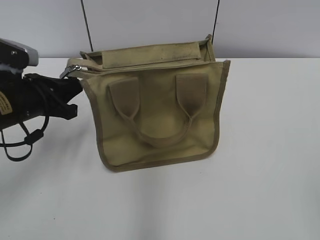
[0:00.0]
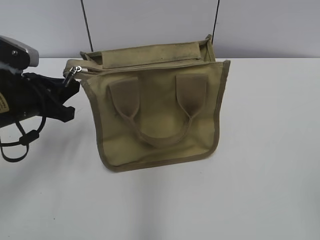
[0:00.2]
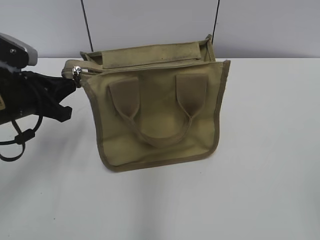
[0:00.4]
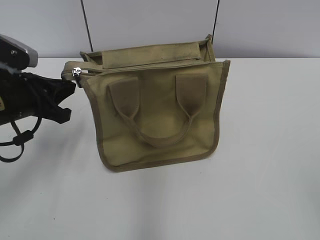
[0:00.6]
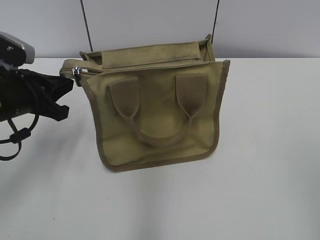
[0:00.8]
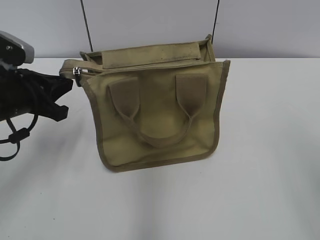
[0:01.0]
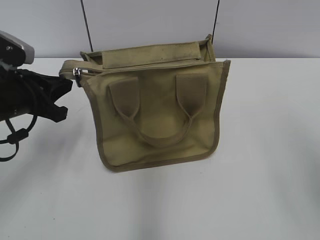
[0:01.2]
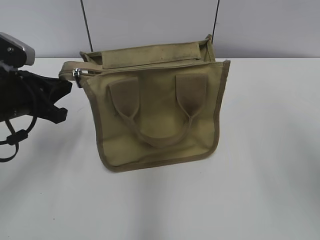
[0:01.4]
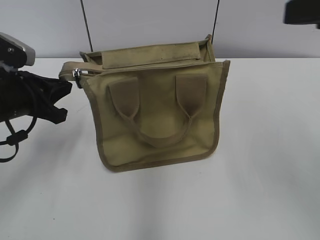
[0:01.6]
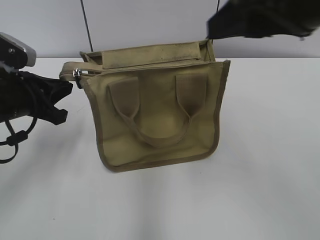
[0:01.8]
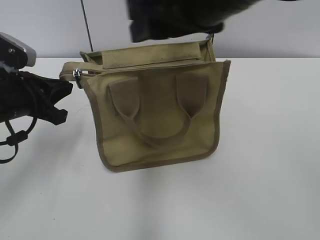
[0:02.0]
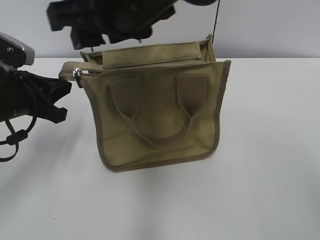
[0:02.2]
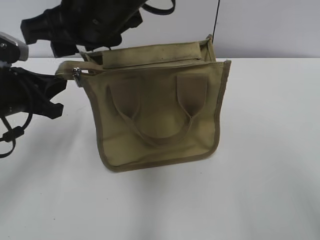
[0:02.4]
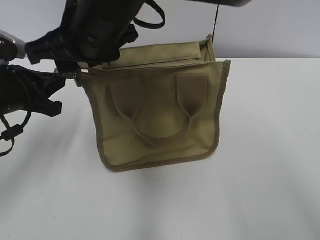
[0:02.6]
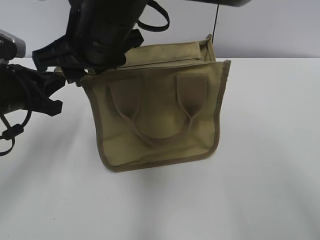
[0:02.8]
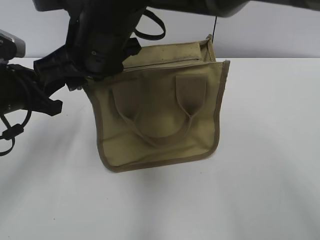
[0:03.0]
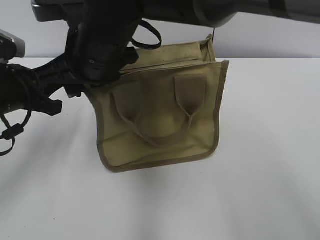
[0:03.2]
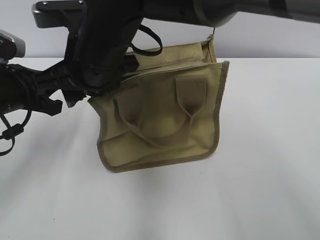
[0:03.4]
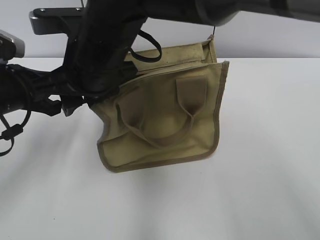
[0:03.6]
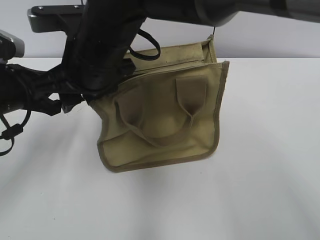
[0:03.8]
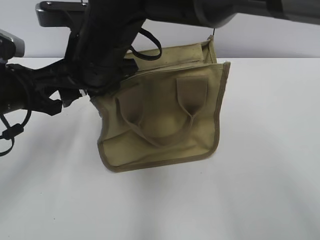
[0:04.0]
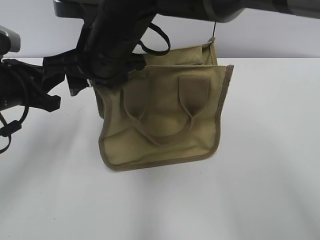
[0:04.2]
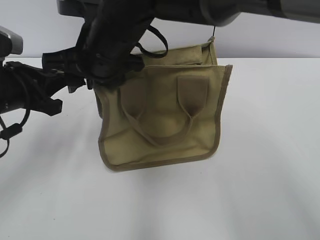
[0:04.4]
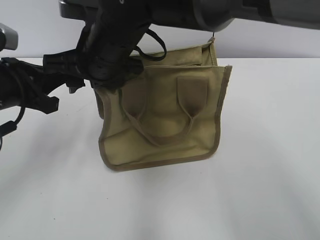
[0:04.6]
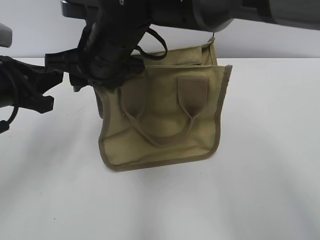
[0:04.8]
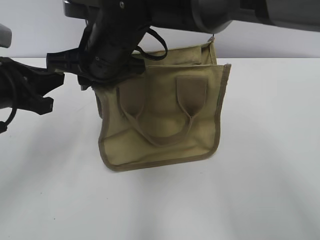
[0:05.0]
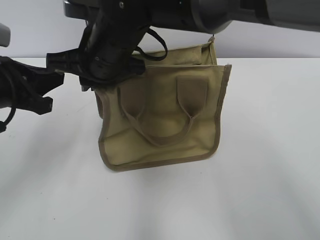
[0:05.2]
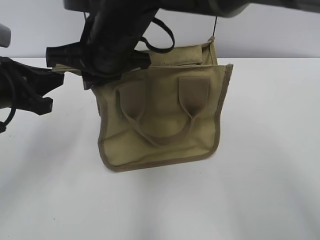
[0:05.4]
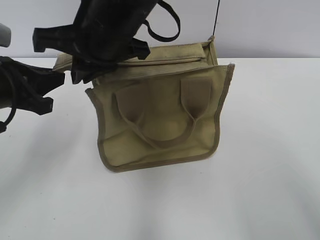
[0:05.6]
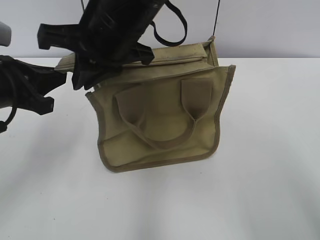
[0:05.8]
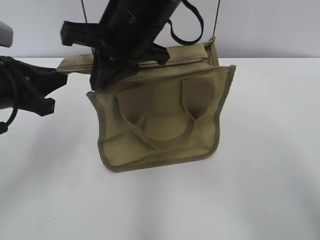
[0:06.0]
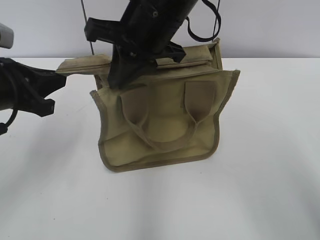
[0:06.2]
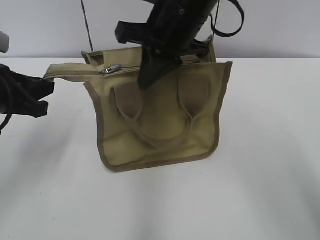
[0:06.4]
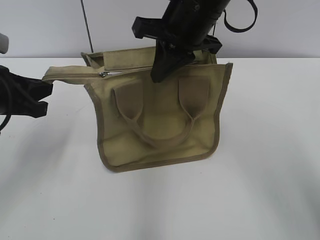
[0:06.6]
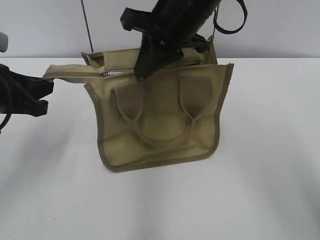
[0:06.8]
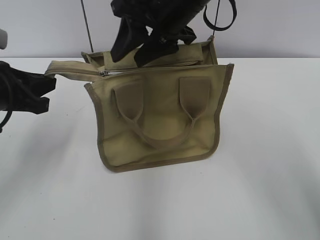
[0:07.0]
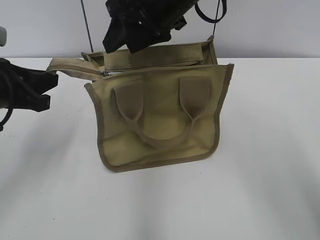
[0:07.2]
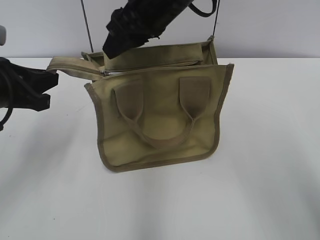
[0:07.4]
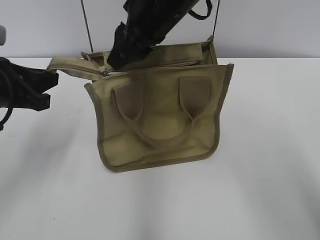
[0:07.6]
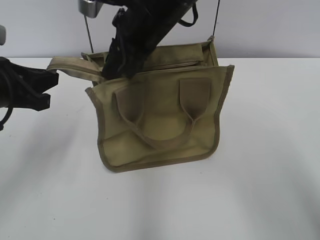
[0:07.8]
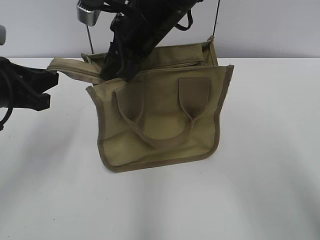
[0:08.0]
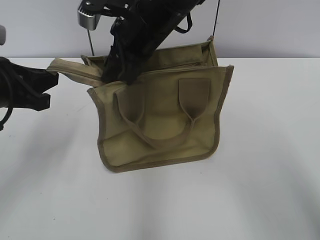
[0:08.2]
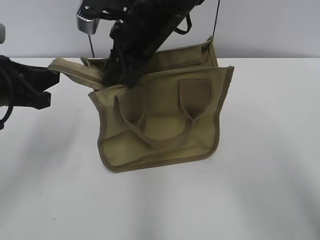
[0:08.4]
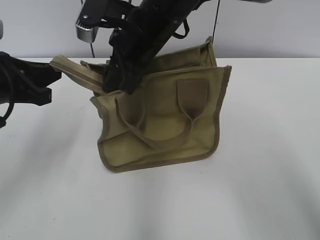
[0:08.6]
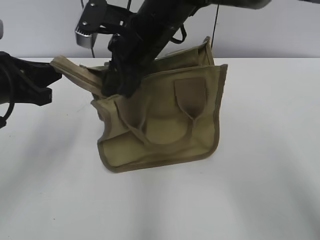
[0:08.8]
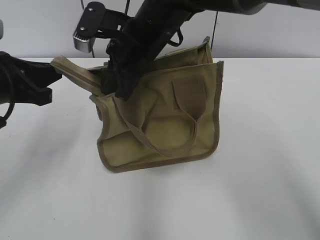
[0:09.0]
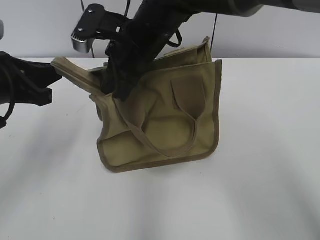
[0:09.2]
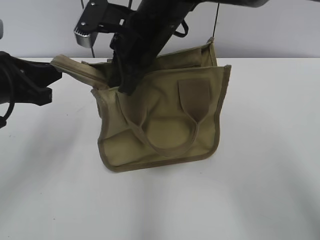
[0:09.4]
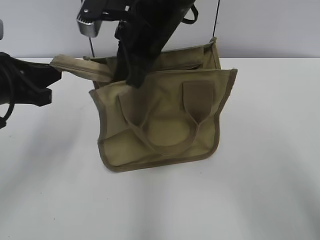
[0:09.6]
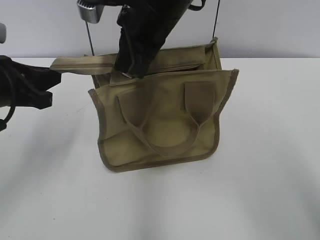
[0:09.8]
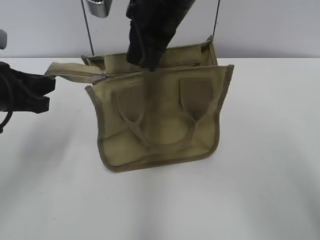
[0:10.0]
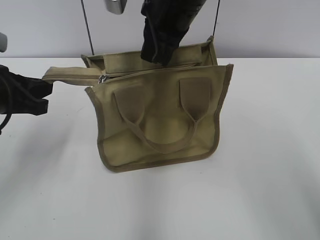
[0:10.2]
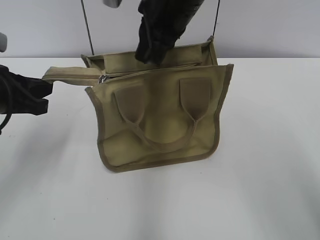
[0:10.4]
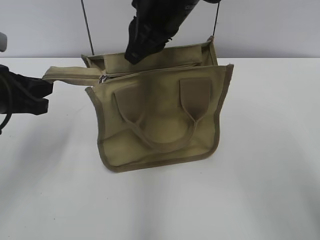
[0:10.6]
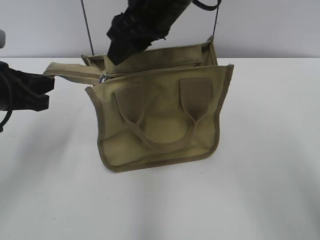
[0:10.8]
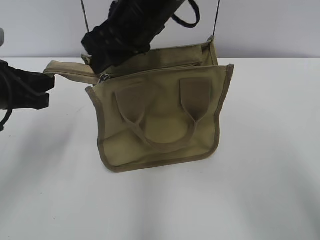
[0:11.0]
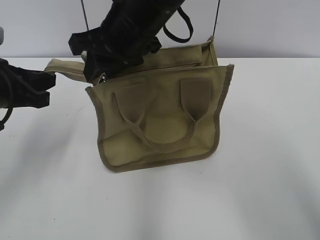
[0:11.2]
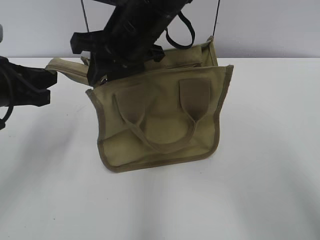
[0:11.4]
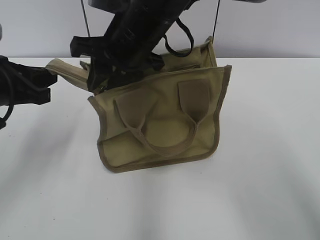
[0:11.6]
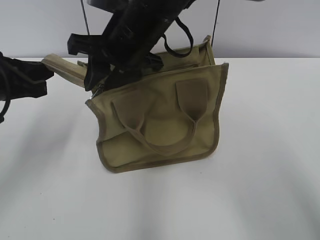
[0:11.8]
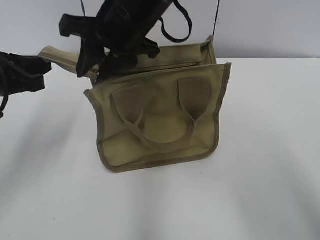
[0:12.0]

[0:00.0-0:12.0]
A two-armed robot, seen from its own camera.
0:00.0 to 0:01.6: The right gripper travels forward and upward by roughly 20 cm.
0:01.6 to 0:03.0: The right gripper is displaced to the left by about 30 cm.
0:03.0 to 0:04.4: There are only small adjustments of the grippers.
0:04.4 to 0:06.0: The right gripper ends up some 5 cm from where it was, and closes up.
0:06.0 to 0:07.6: The right gripper moves about 5 cm, and opens.
0:07.6 to 0:09.0: The right gripper shifts roughly 5 cm downward.
0:09.0 to 0:10.4: The right gripper moves upward, roughly 5 cm.
0:10.4 to 0:12.0: The right gripper goes approximately 5 cm to the left, and opens its fingers.

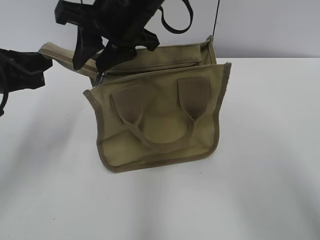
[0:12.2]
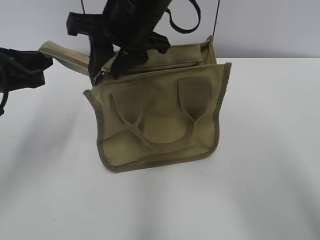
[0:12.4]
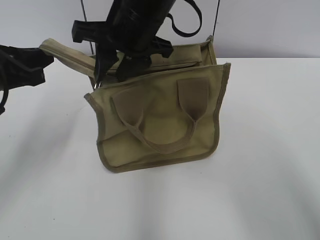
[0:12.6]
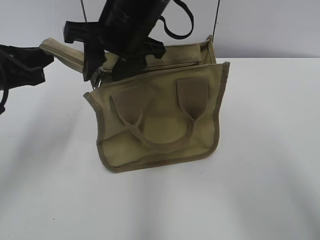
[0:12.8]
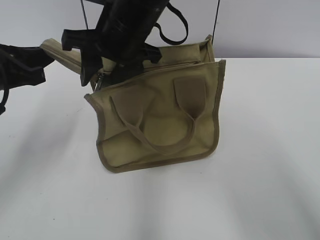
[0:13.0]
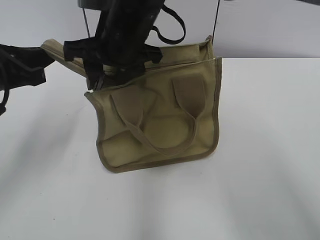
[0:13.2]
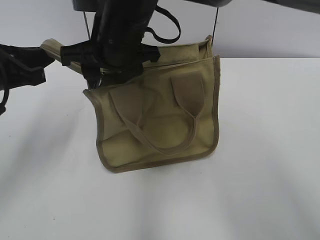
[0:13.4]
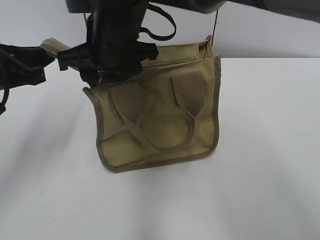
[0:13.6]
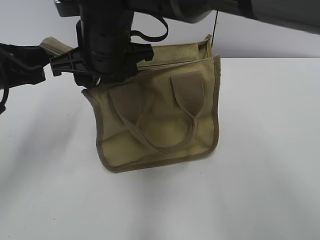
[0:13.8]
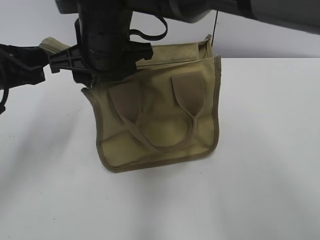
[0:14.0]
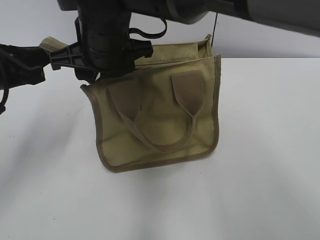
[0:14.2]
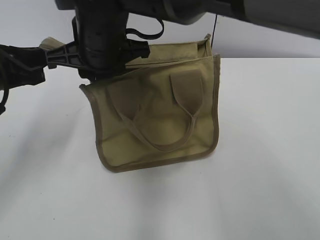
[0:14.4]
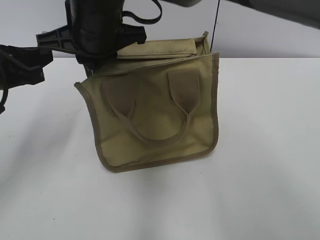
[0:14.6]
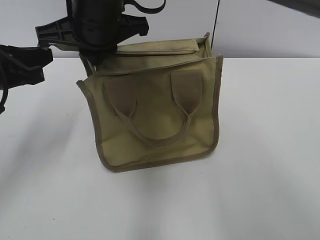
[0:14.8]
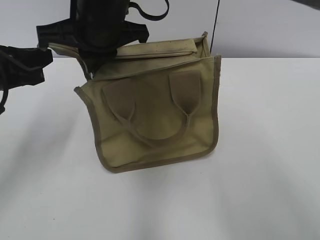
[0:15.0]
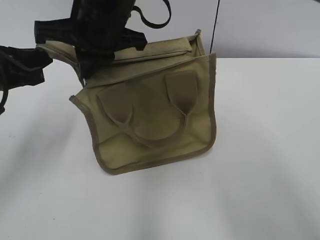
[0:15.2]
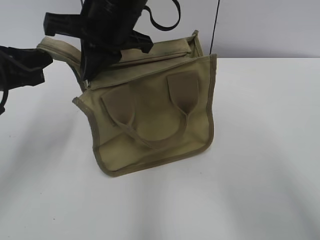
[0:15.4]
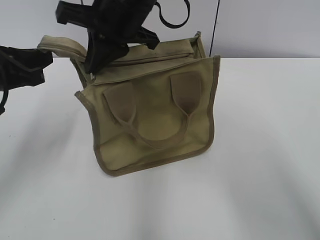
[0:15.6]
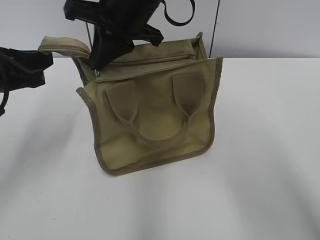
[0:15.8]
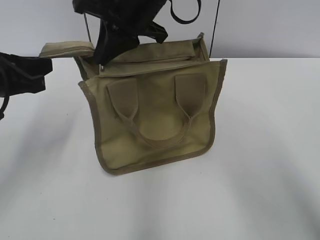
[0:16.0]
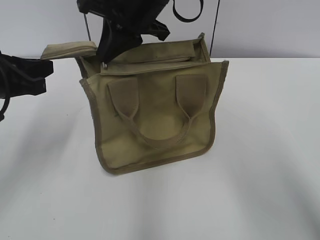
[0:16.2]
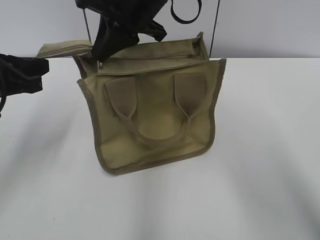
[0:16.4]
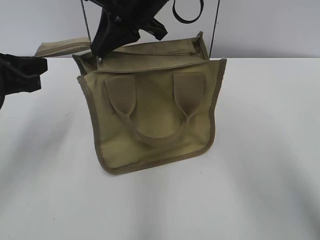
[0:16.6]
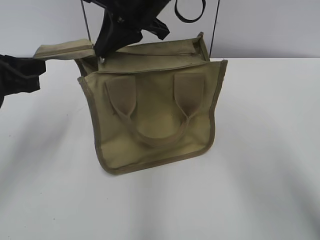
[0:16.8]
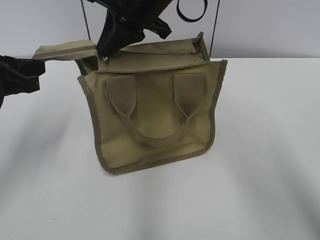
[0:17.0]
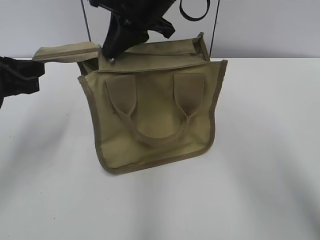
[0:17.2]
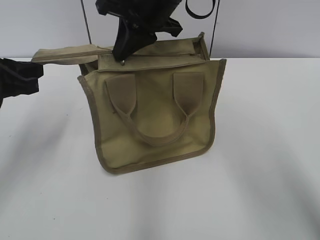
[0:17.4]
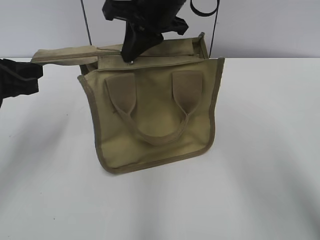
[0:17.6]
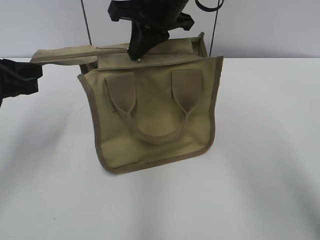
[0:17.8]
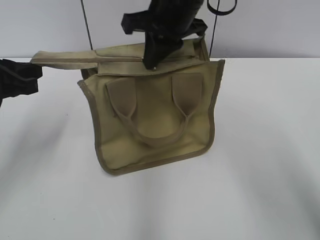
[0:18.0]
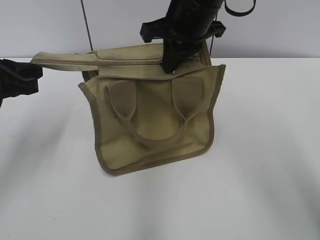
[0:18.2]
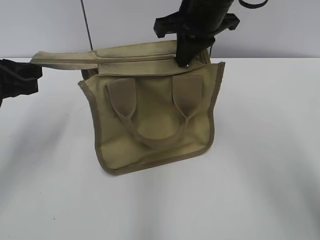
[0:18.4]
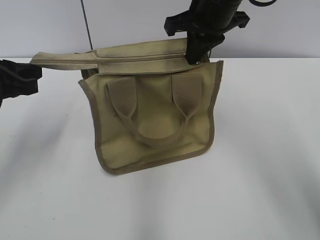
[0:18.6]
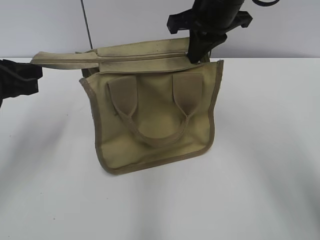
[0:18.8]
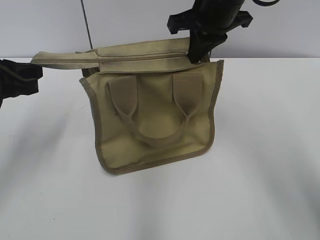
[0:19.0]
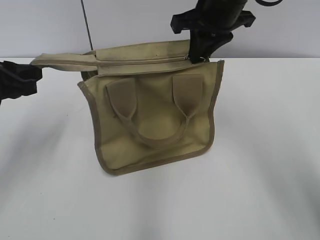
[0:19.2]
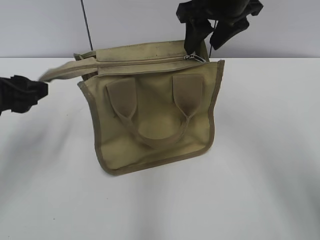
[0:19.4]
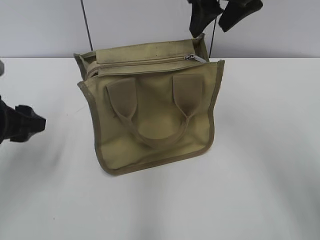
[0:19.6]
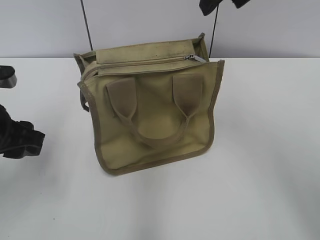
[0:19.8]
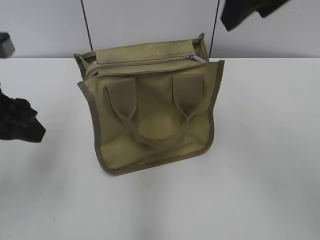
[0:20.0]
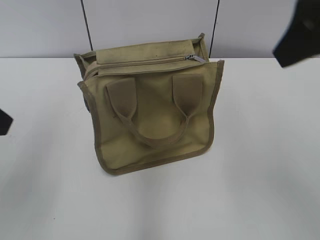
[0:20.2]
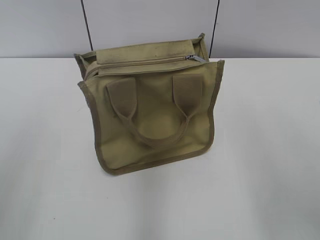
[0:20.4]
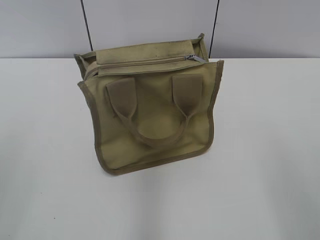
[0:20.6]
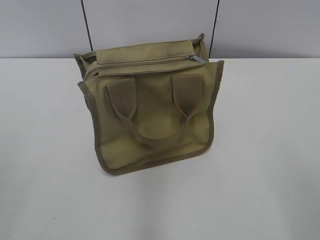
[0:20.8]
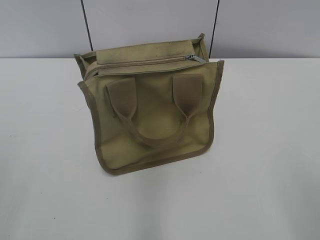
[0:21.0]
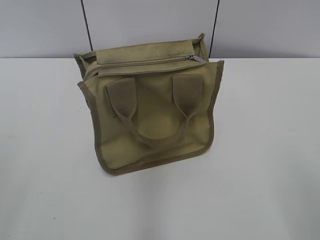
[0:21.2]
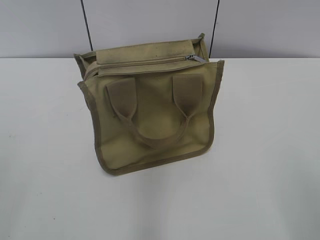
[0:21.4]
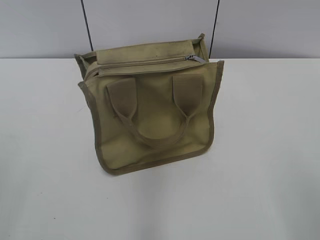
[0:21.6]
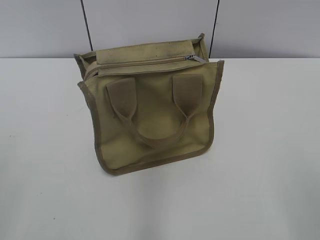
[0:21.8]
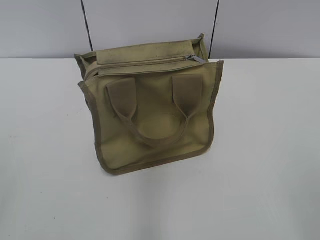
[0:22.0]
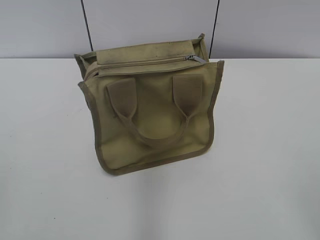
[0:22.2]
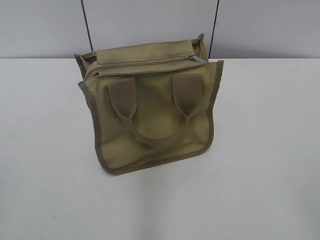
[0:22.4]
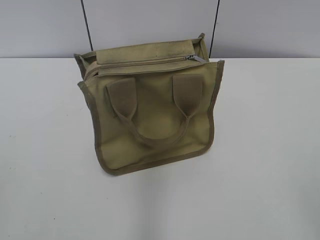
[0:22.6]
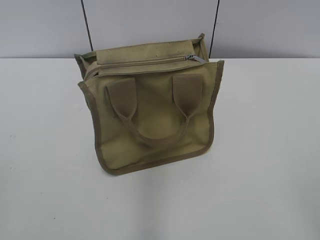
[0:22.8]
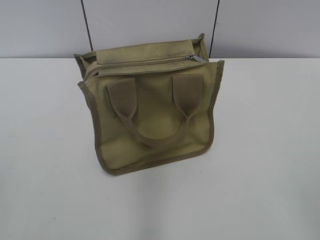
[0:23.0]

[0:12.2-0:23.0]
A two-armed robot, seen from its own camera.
Step, 0:12.2 to 0:19.2: Zip up the bag with your right hand.
Step, 0:19.6 to 0:19.8: Grab the zipper with your left hand.
0:12.2 to 0:13.8: The right gripper ends up approximately 5 cm from where it was.
0:13.8 to 0:15.2: The right gripper closes.
0:15.2 to 0:16.8: The right gripper is displaced to the right and forward by about 10 cm.
0:16.8 to 0:18.4: The right gripper travels to the right by about 10 cm.
0:18.4 to 0:20.0: The right gripper heads upward, backward and to the right, covering some 15 cm, and opens. The left gripper moves roughly 5 cm, and opens up.
0:20.0 to 0:21.4: The right gripper travels backward, to the right and downward by some 35 cm. The left gripper heads backward and to the left, covering about 20 cm.
